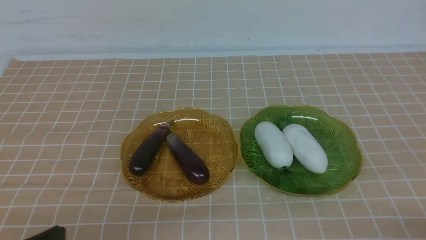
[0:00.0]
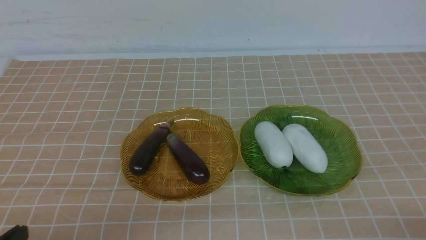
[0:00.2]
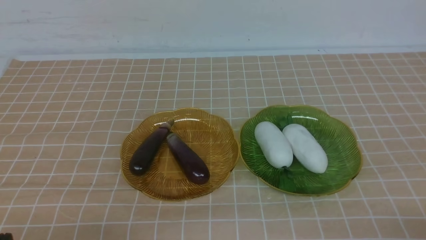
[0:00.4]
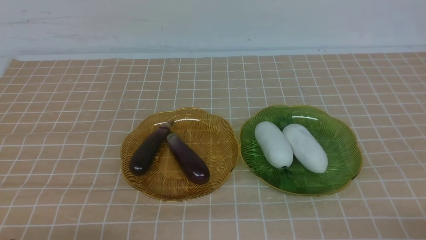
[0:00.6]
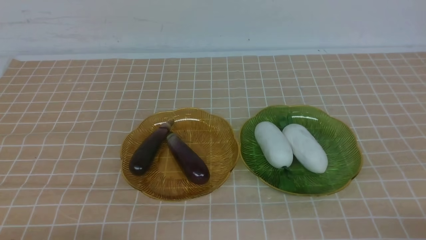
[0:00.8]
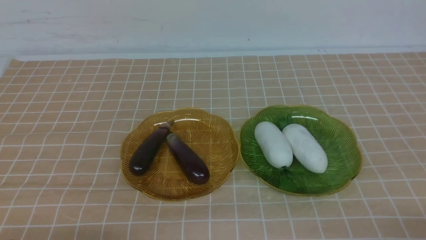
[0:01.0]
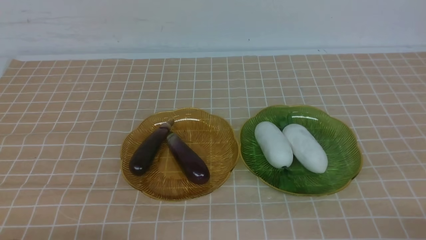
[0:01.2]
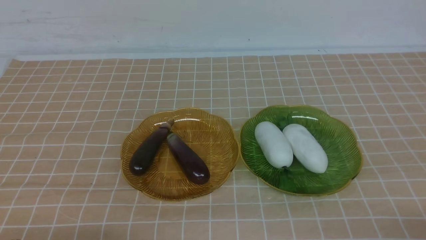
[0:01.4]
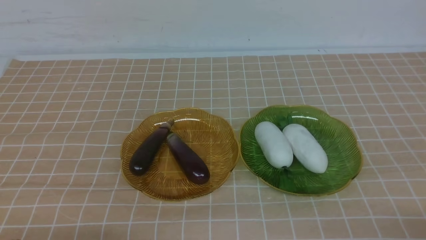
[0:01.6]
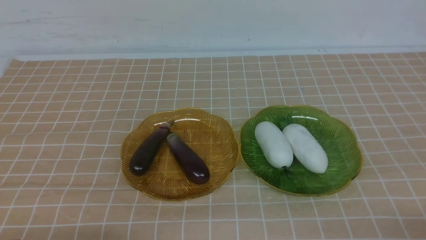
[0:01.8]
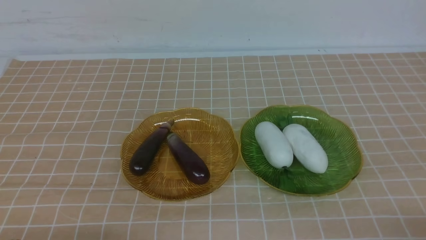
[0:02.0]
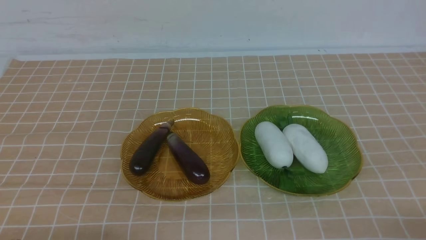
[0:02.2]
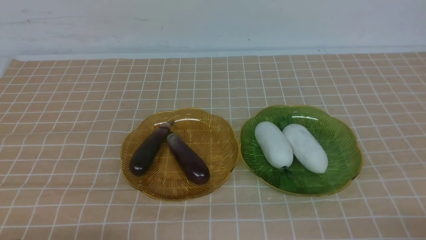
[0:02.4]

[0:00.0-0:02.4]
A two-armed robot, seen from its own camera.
0:01.2 to 0:02.4: Neither gripper changes place.

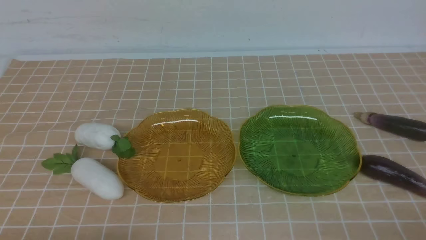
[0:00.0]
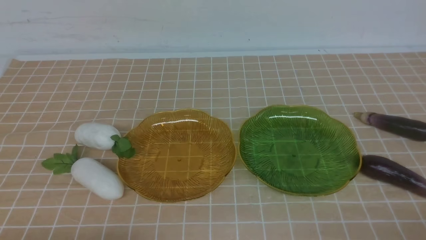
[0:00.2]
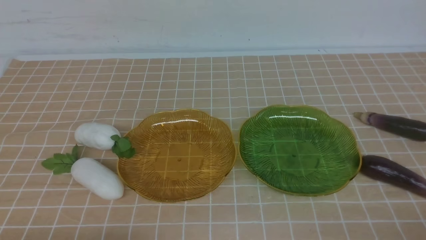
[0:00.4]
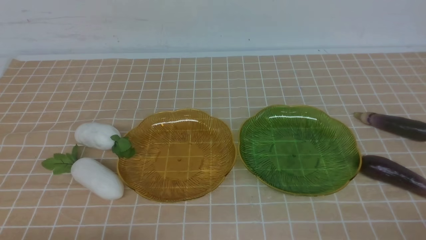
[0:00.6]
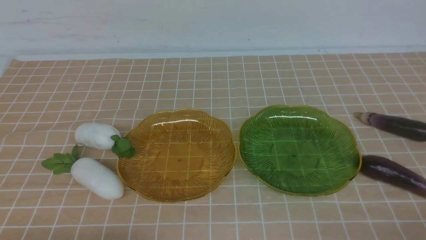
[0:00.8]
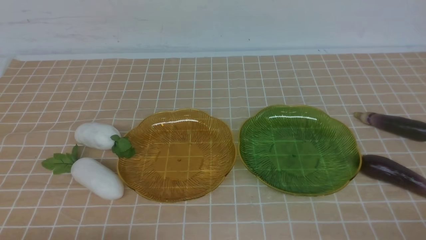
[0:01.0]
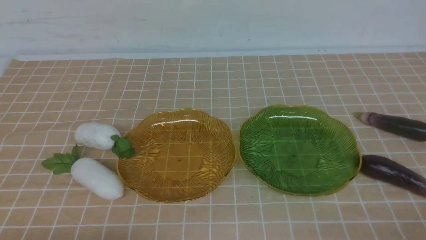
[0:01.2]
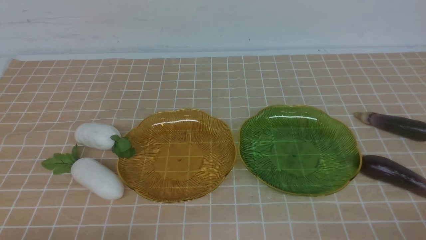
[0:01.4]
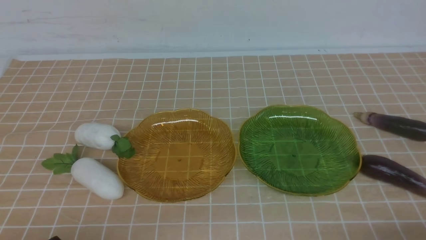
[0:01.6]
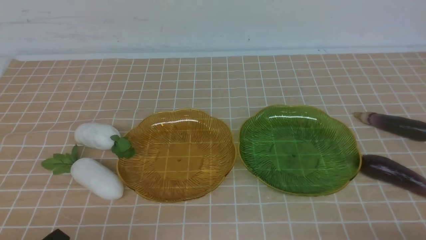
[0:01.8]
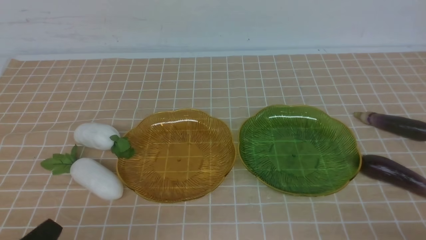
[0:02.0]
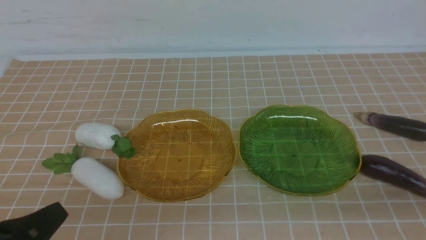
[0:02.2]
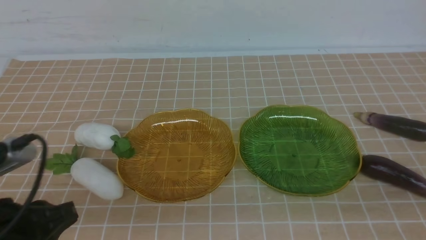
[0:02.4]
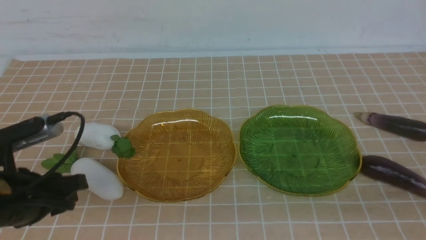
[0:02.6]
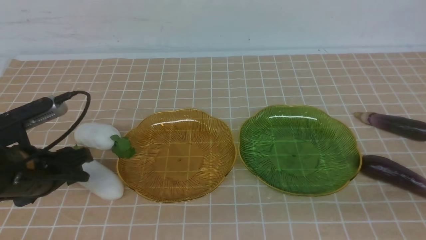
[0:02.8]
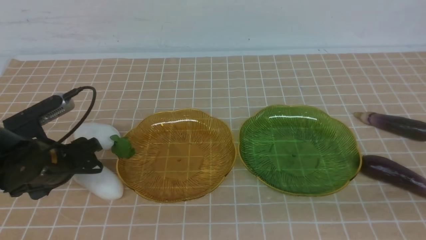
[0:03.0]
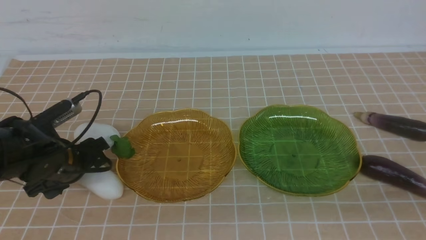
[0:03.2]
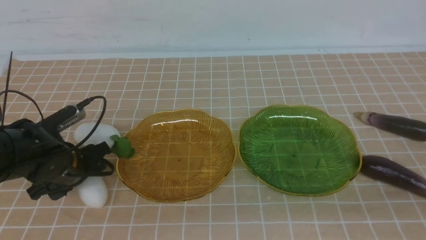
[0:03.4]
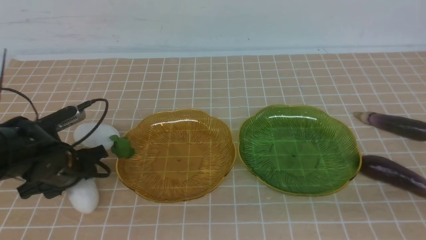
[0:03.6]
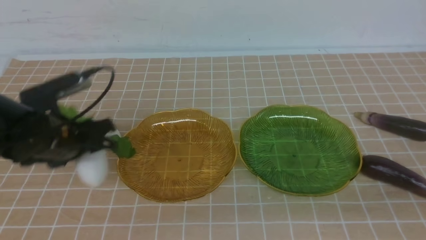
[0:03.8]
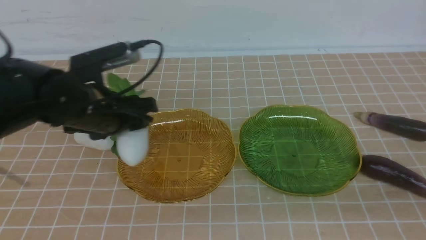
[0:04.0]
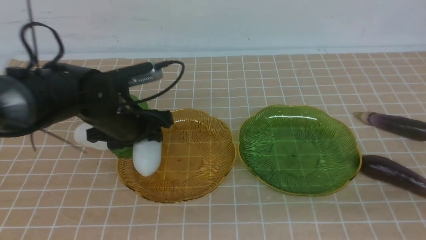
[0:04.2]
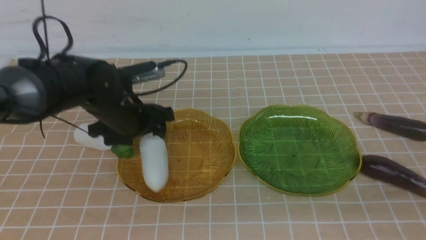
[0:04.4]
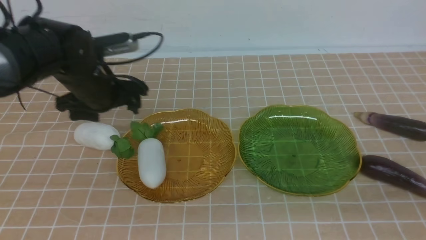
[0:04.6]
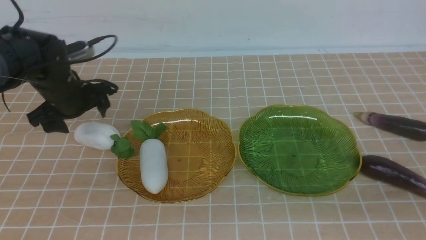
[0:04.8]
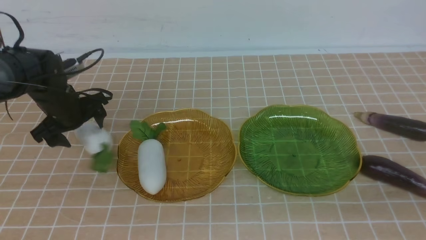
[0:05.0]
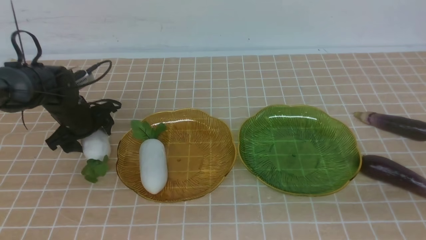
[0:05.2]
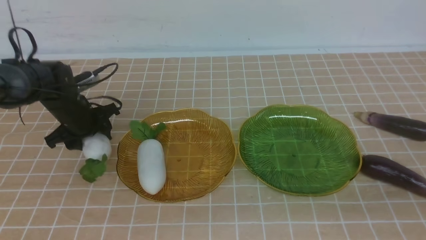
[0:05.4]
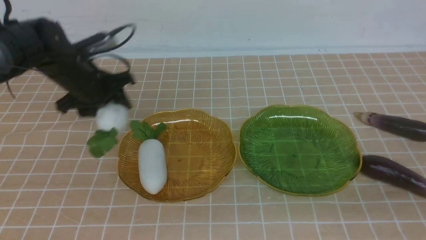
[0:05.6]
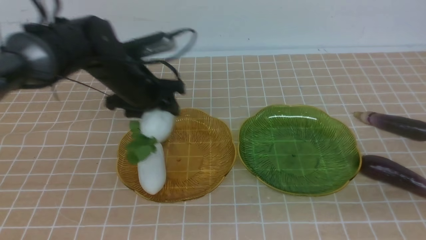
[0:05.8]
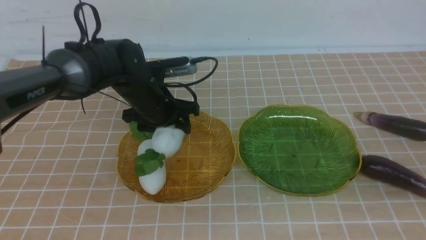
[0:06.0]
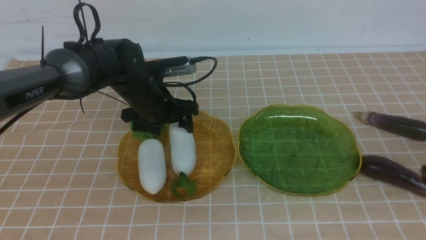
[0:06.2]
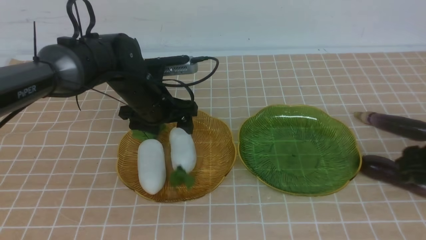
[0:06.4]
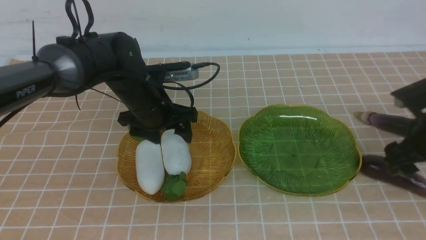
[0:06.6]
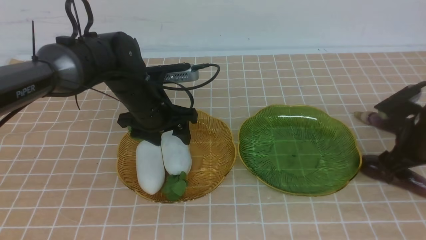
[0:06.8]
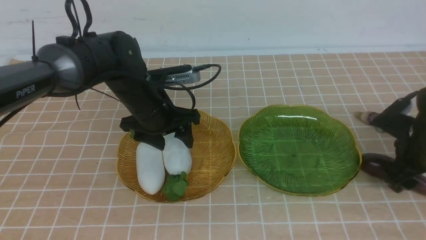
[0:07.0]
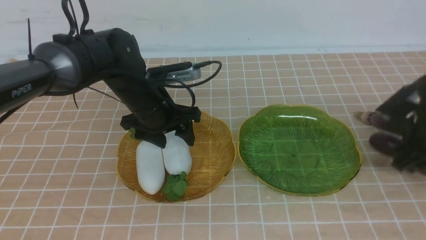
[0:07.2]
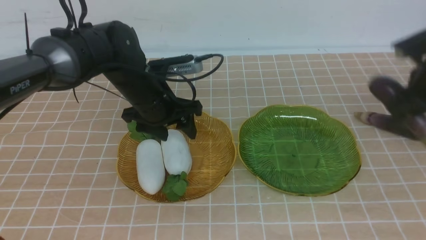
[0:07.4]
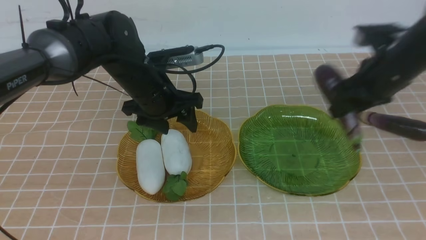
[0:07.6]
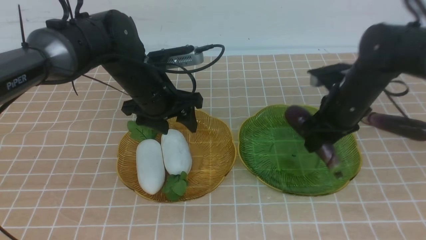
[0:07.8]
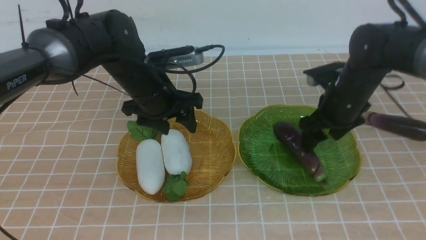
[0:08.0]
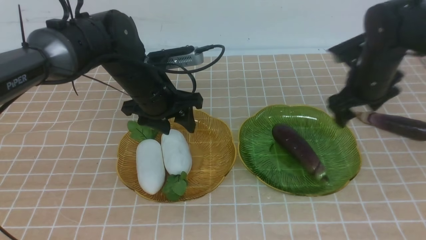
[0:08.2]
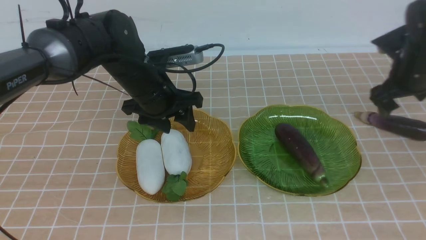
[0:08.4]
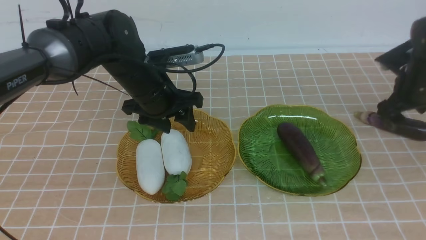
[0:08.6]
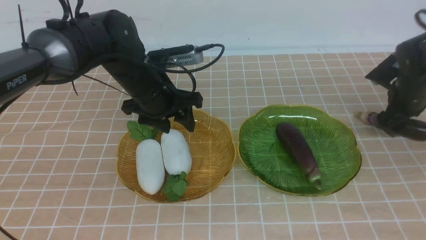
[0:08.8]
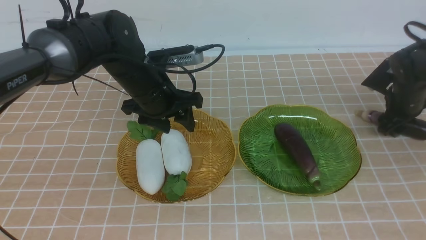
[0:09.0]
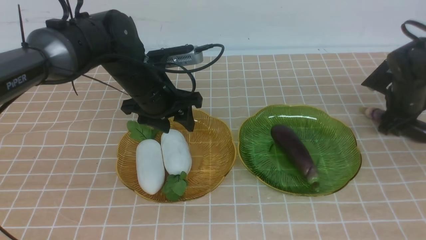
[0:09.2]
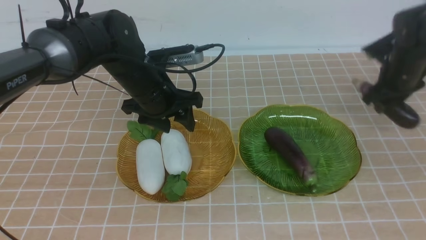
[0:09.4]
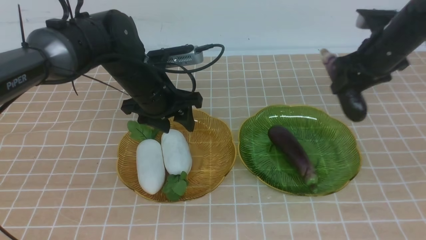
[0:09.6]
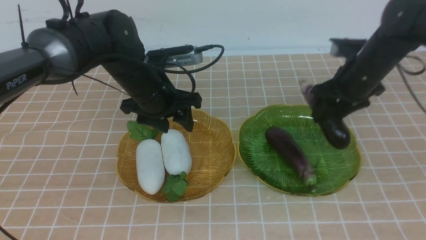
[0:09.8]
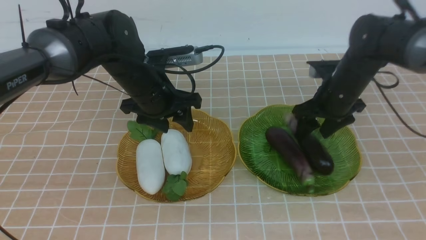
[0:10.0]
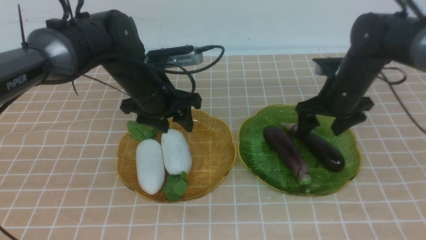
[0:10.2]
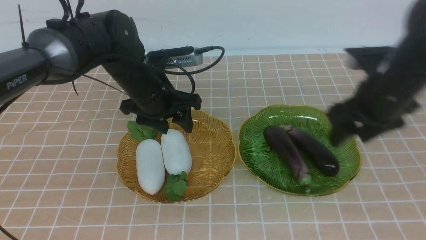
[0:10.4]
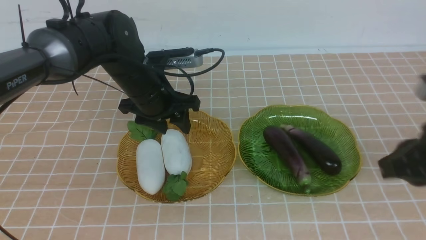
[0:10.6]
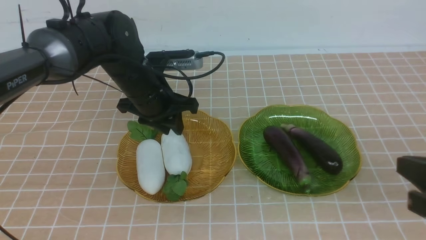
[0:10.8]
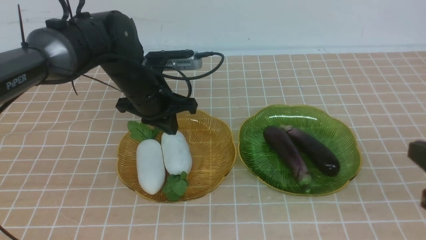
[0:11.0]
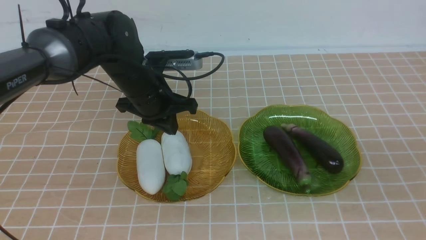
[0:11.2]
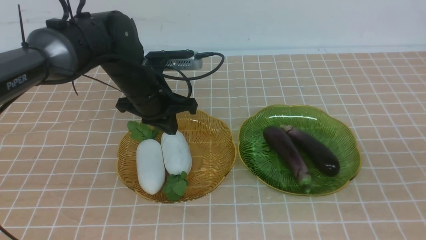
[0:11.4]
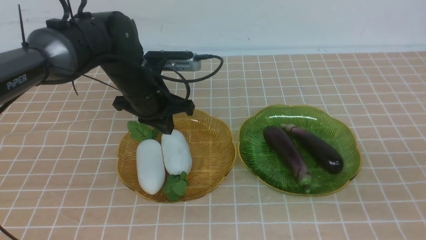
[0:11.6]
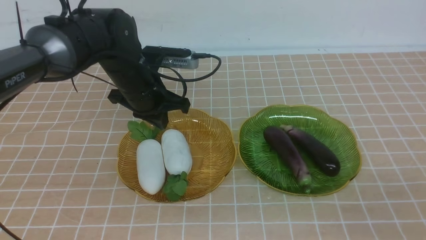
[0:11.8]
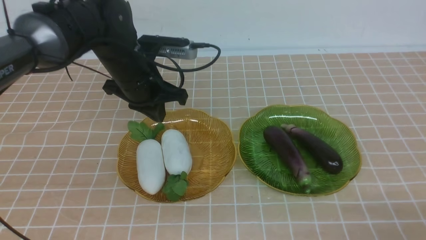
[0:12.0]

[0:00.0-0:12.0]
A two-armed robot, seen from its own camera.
Step, 0:00.0 to 0:06.2: use the left arm to grab a radish and put it into the left plate.
Step, 0:06.6 to 0:10.2: use the right arm to grab an eggplant and put it into the right plate.
0:01.6 to 0:03.0: The left gripper moves forward, approximately 20 cm, and opens its fingers.
0:03.0 to 0:04.4: The left gripper goes roughly 15 cm forward and to the right.
0:04.4 to 0:06.0: The grippers both shift forward by roughly 5 cm. The left gripper moves approximately 10 cm to the left and comes back.
0:06.0 to 0:07.6: The right gripper shifts about 25 cm forward, and opens its fingers.
0:07.6 to 0:09.0: The right gripper goes about 15 cm downward, forward and to the right.
0:09.0 to 0:10.4: The right gripper is displaced backward, upward and to the left by approximately 25 cm.
0:10.4 to 0:12.0: The right gripper travels backward by about 25 cm, and closes its fingers, while the left gripper closes up.

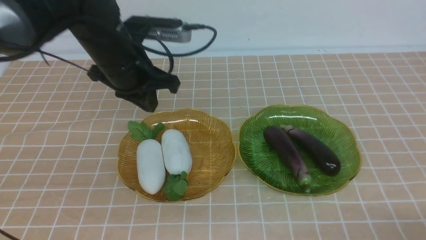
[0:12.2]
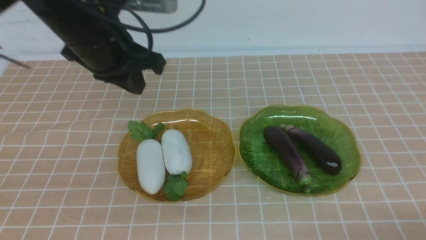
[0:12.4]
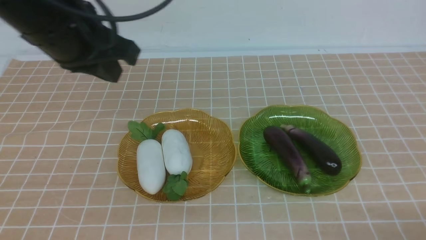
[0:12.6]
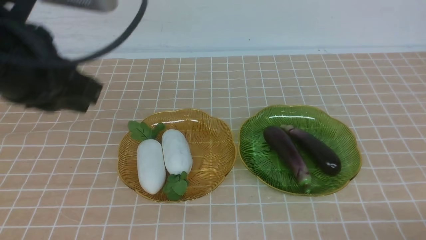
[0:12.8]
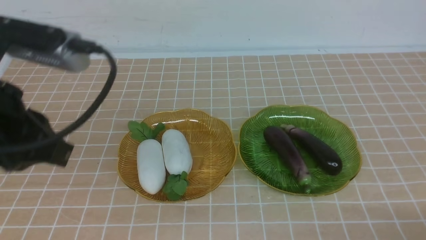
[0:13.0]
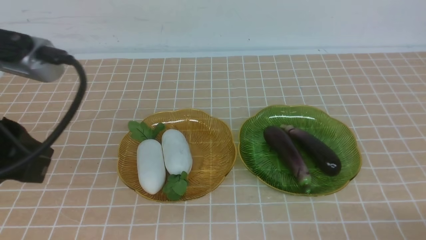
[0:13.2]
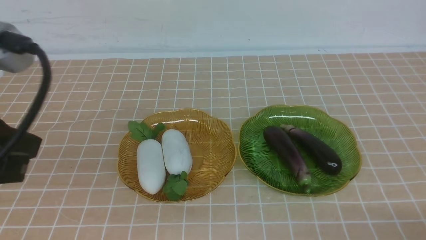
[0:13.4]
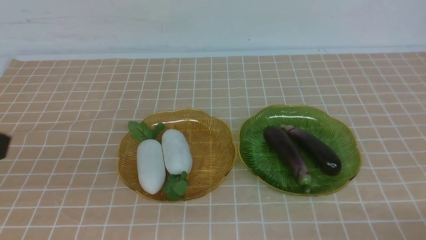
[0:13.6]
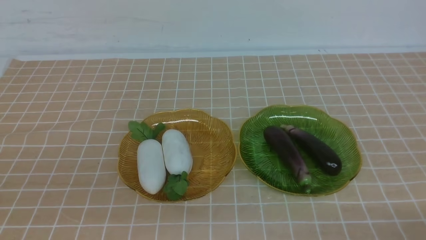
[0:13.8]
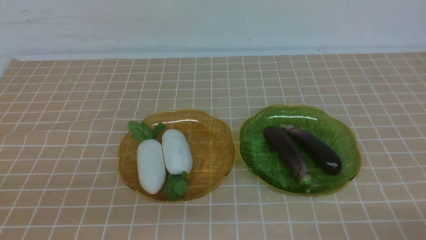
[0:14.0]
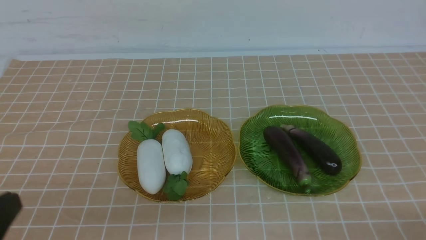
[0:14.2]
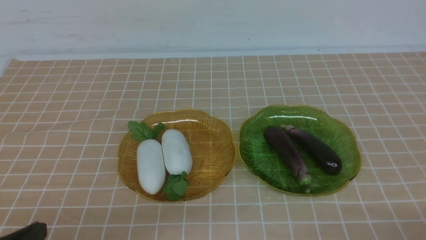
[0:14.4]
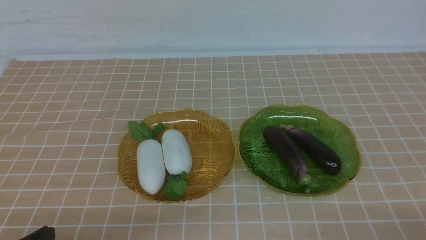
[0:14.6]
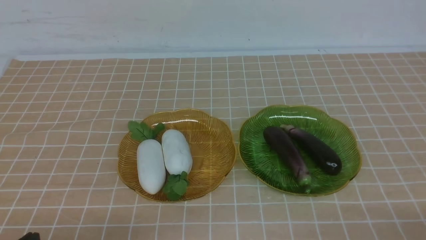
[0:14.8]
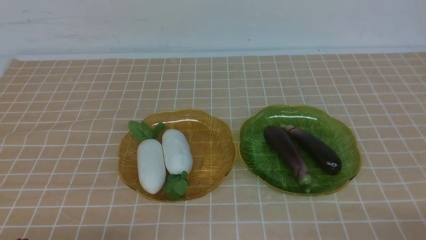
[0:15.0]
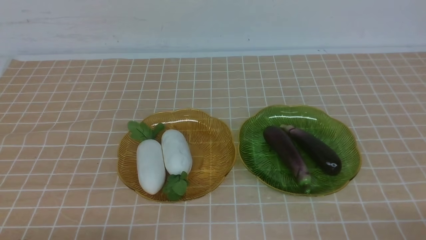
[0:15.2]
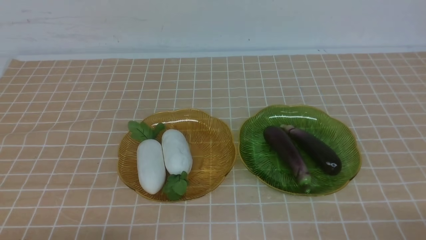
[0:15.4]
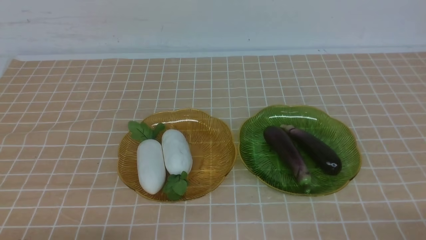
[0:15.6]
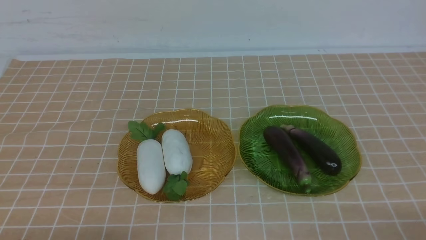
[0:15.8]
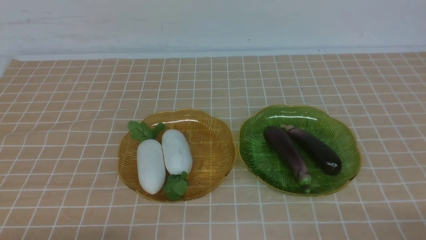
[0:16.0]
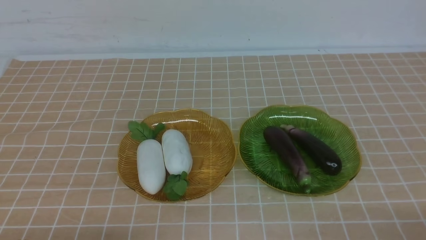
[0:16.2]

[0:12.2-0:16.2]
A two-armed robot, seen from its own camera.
0:12.2 to 0:13.6: The left gripper heads backward and upward, covering about 25 cm.
0:13.6 to 0:14.8: The left gripper heads downward, covering approximately 20 cm.
